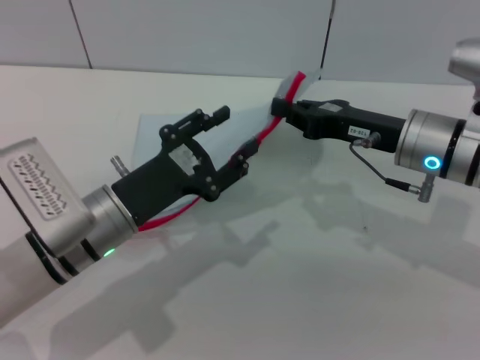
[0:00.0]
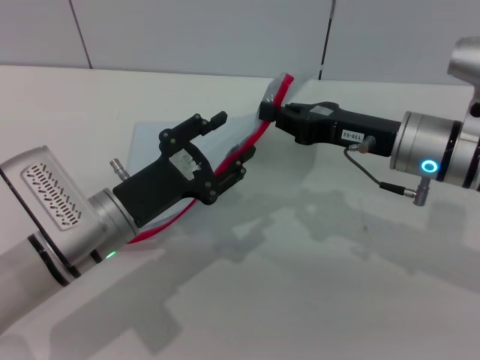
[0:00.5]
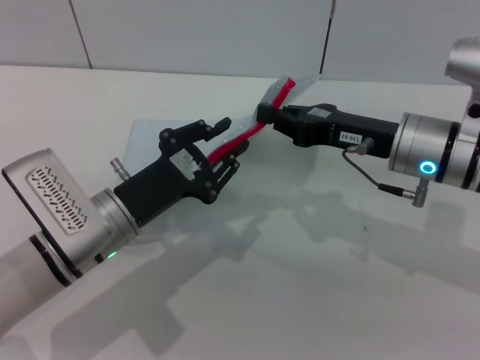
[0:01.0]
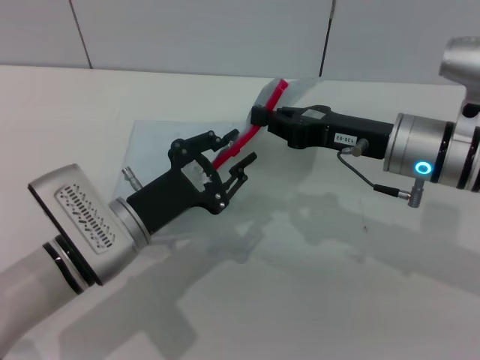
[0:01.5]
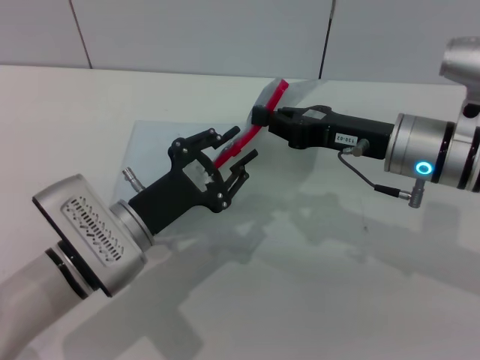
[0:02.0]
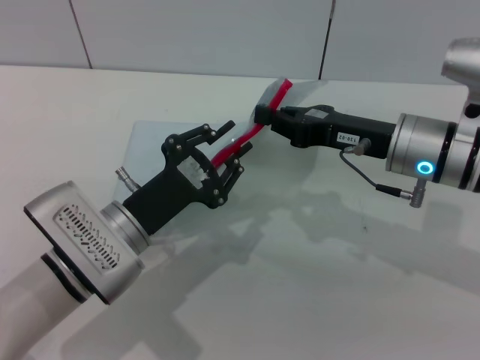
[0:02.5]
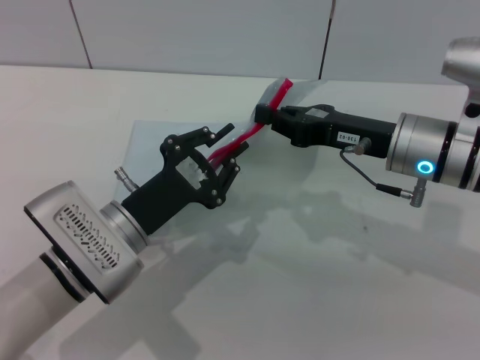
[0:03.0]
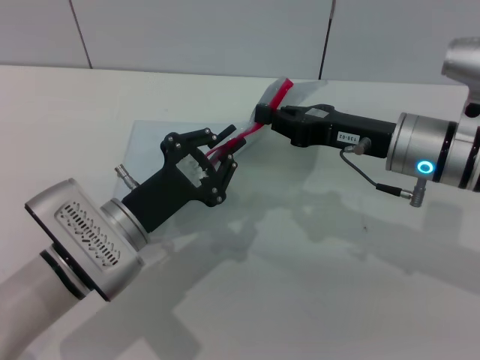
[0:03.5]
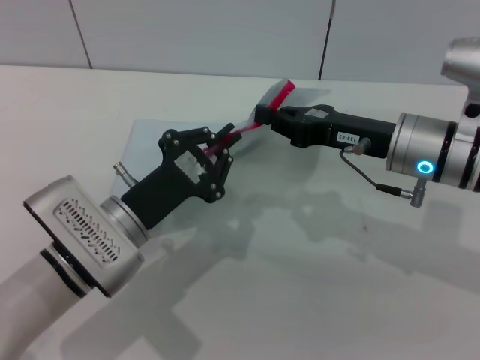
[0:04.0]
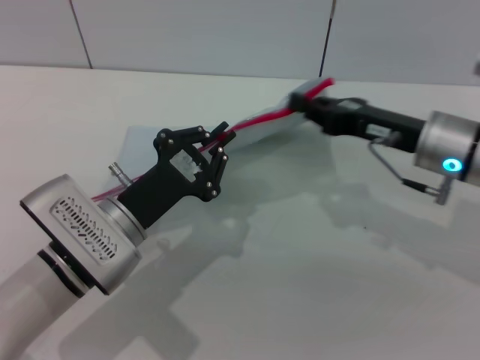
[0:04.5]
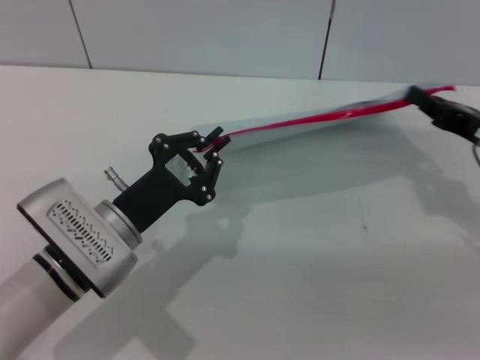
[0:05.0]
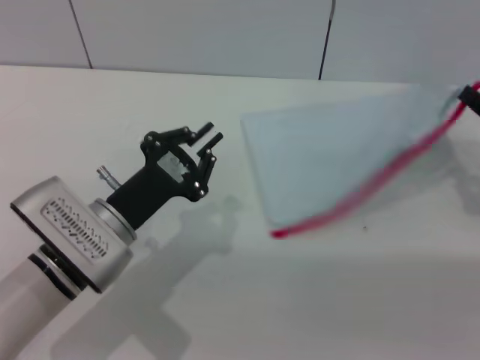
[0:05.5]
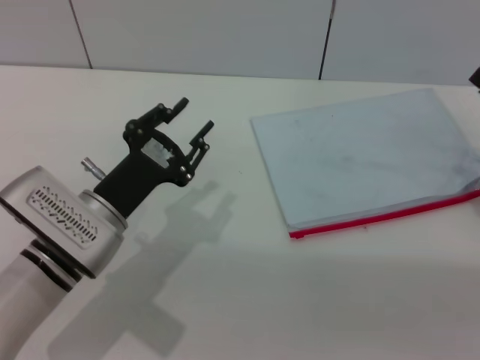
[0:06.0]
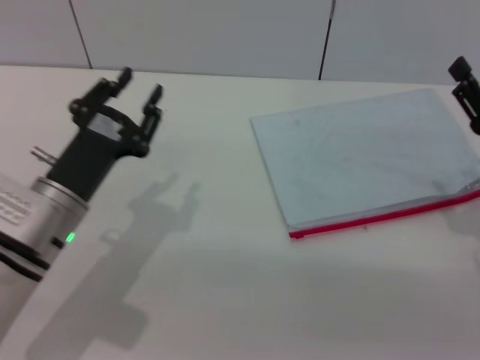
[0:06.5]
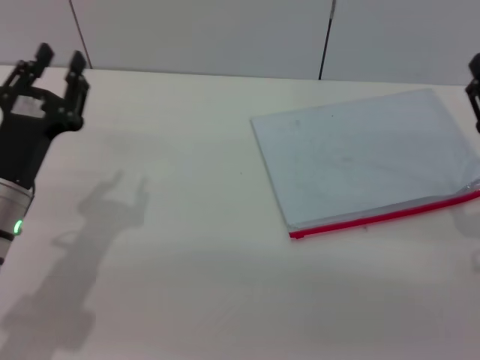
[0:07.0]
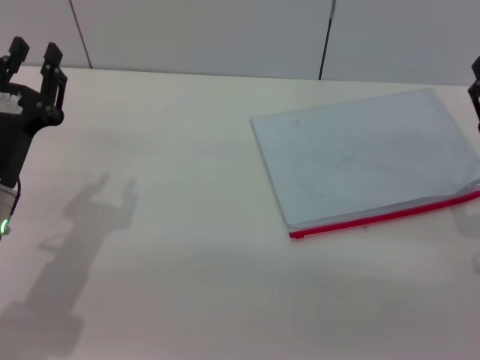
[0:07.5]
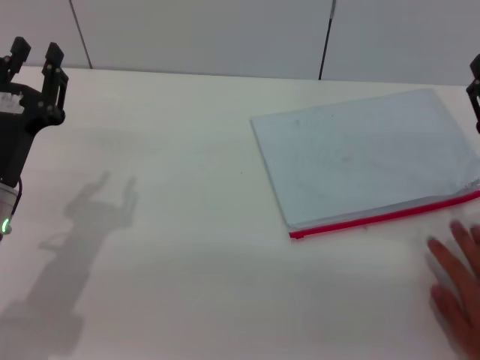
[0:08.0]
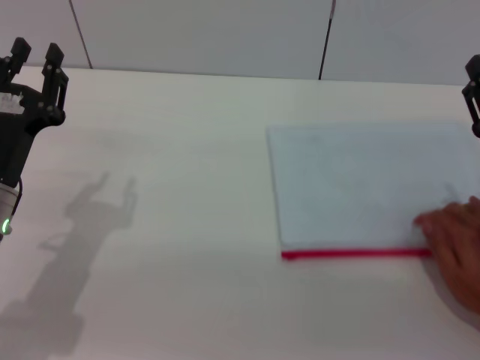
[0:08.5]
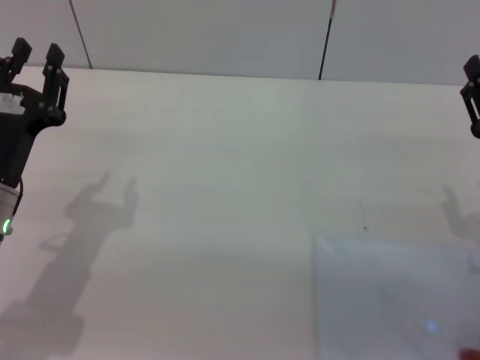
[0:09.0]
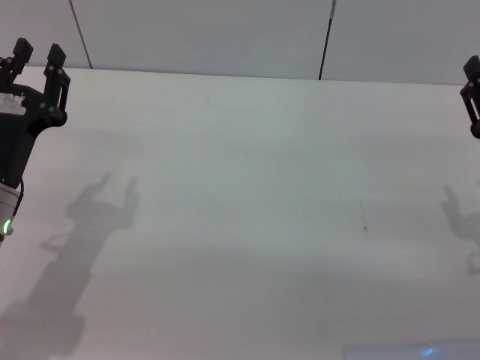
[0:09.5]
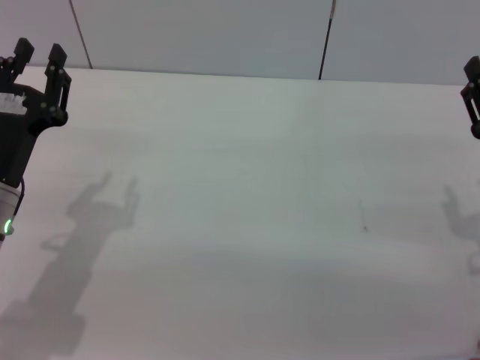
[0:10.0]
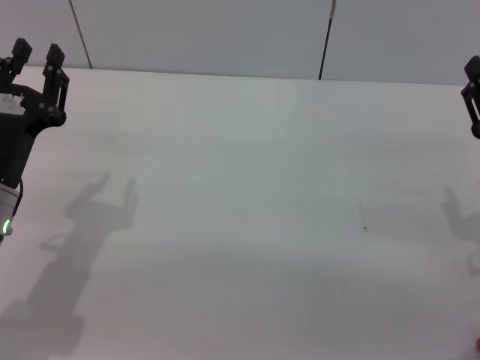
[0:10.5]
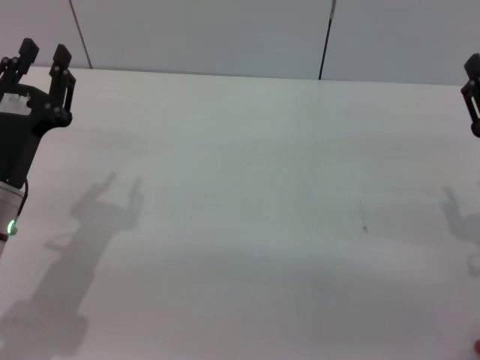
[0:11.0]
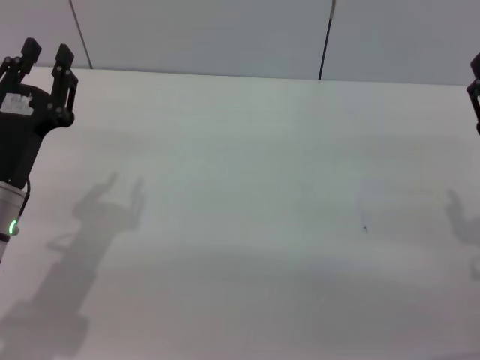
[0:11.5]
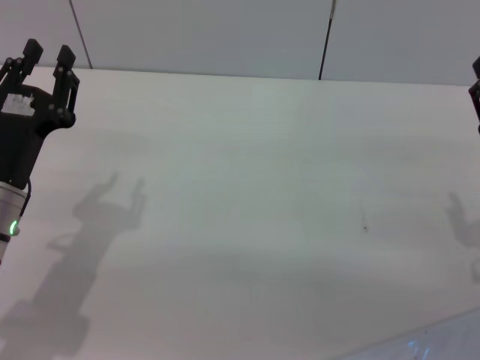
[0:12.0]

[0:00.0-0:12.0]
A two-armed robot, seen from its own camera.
Step, 0:00.0 to 0:05.5: Pulling up the zipper on the transparent plastic bag with the left gripper to close it.
0:00.0 to 0:02.0: The left gripper closes its fingers.
0:02.0 to 0:04.0: The left gripper closes.
0:04.0 to 0:06.0: The right gripper travels to the right by about 15 cm. The left gripper opens up.
0:06.0 to 0:08.0: Both grippers travel together to the left, approximately 5 cm. The right gripper opens.
0:08.0 to 0:12.0: Neither gripper changes place.

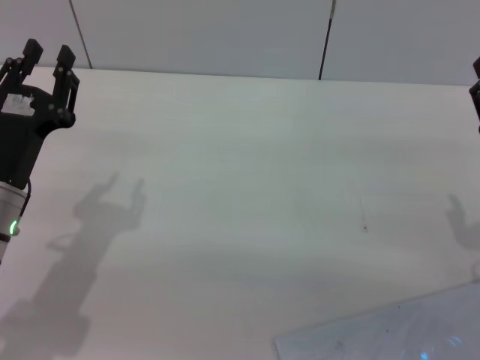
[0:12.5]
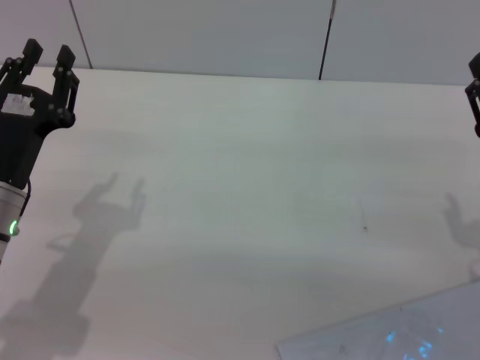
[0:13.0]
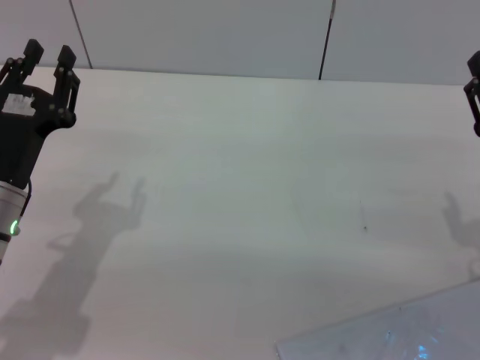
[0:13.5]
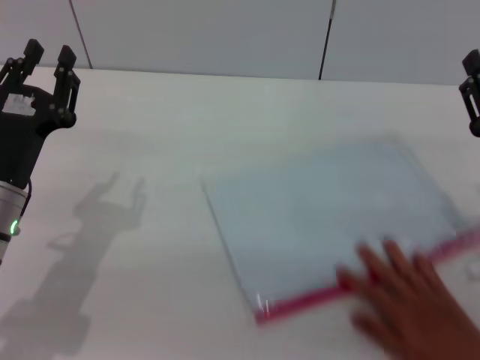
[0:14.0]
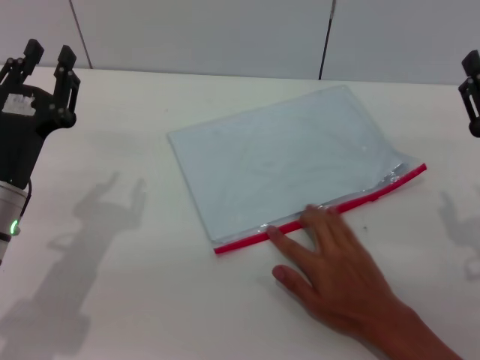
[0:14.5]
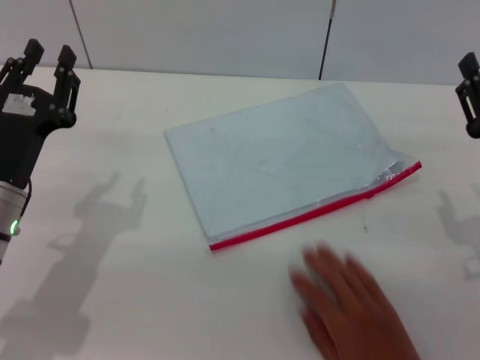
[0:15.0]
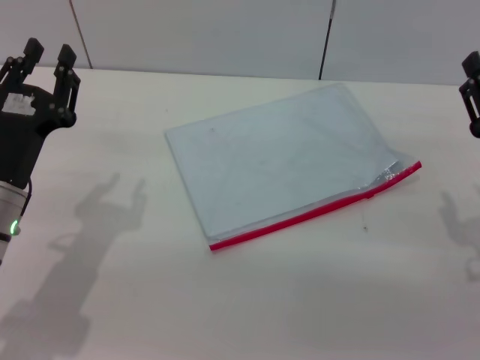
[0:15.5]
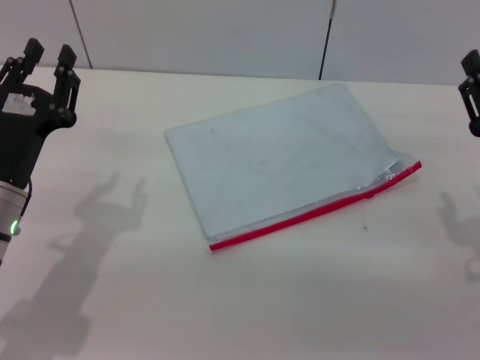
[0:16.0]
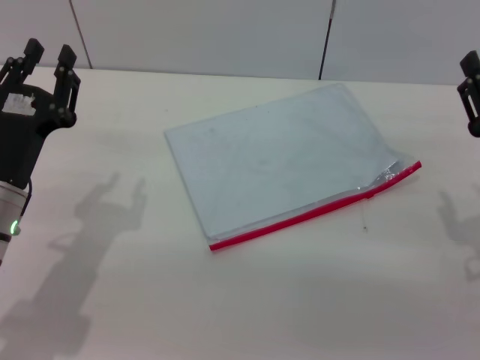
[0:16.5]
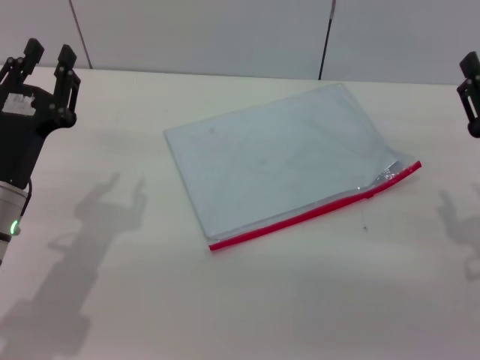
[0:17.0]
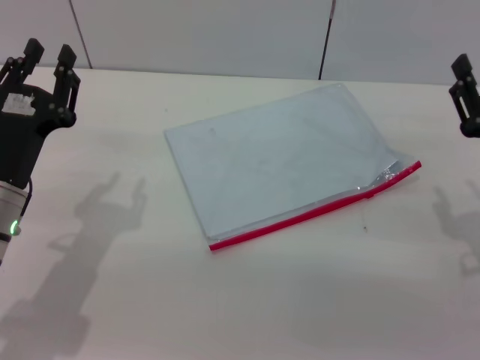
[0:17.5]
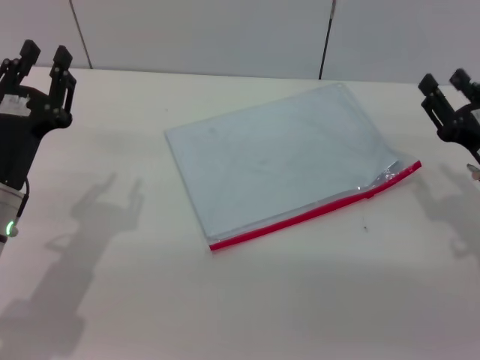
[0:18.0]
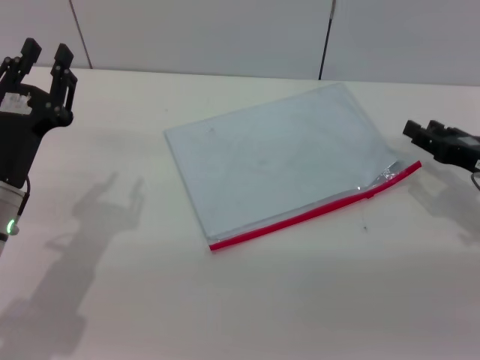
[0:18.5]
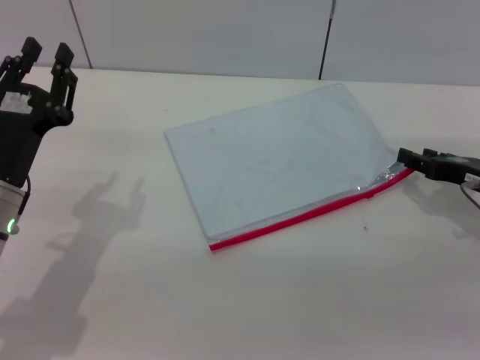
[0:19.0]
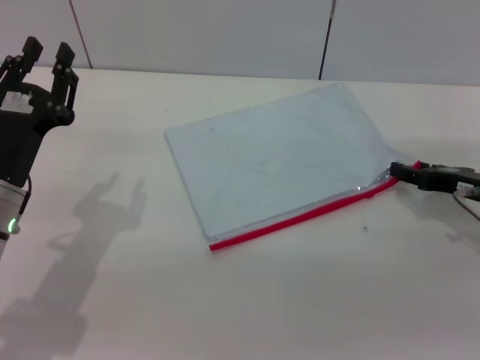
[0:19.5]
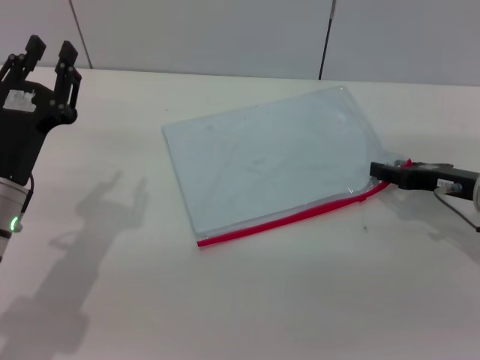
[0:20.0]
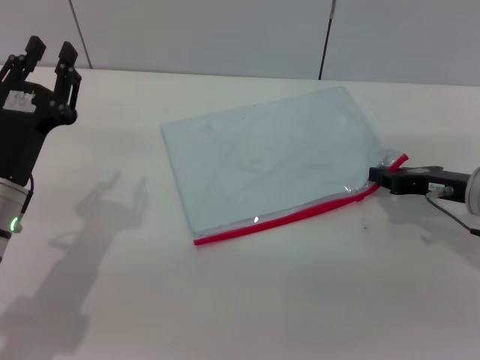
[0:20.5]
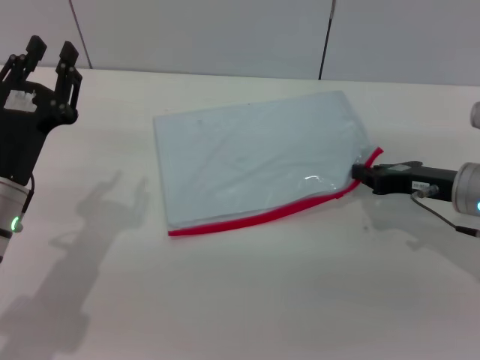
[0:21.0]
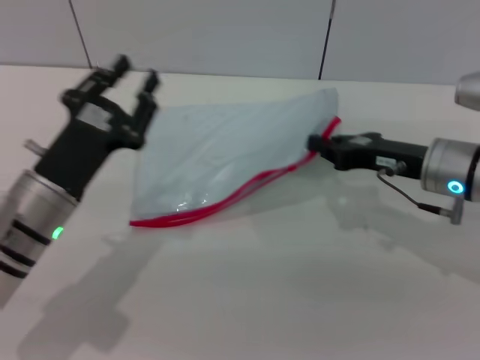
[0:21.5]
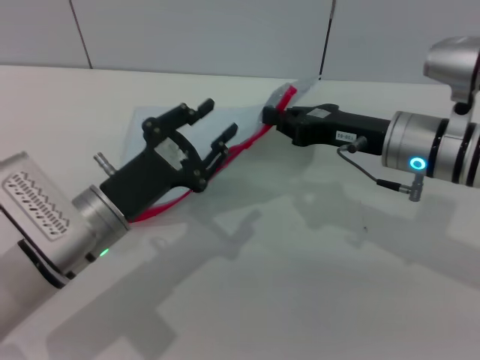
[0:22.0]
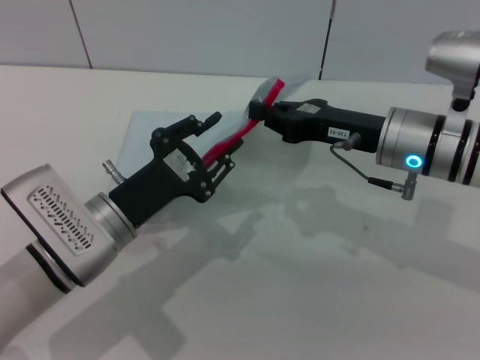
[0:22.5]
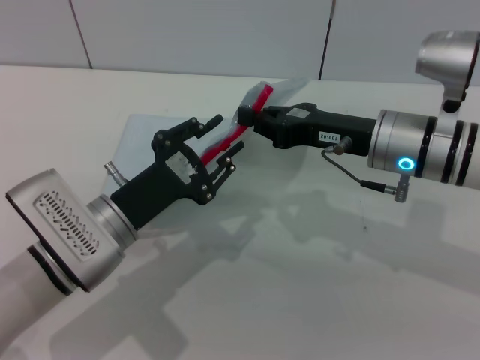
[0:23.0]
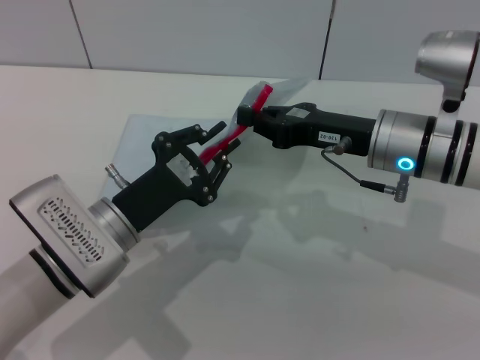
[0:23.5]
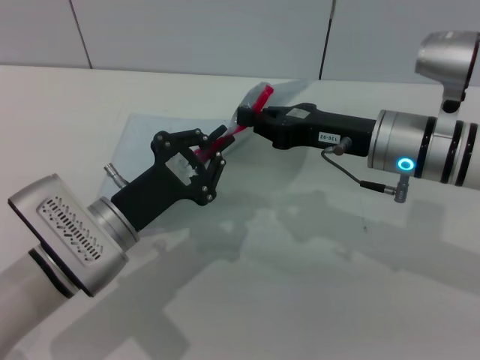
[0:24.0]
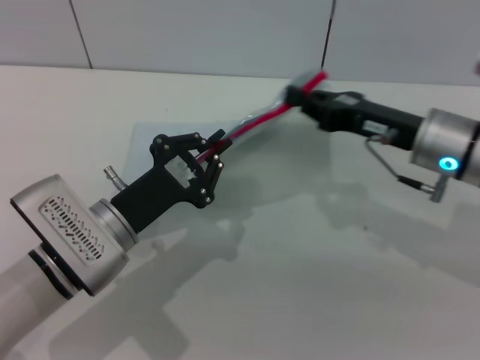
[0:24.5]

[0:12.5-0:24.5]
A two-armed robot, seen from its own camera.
0:12.5 to 0:16.5: Both grippers stay put.
0:16.5 to 0:18.5: The right gripper goes about 5 cm forward.
0:20.5 to 0:22.5: The left gripper goes some 5 cm to the right; the right gripper shifts some 10 cm to the left and upward, and closes.
0:22.5 to 0:24.5: The left gripper closes up.

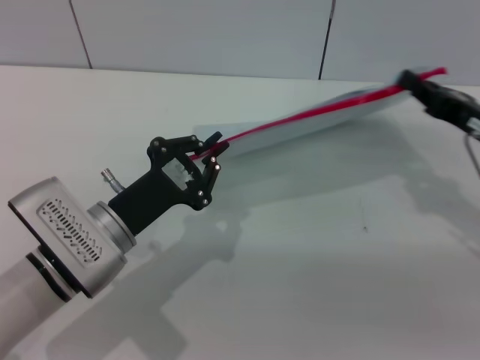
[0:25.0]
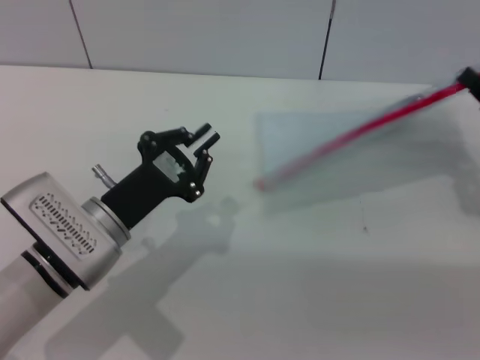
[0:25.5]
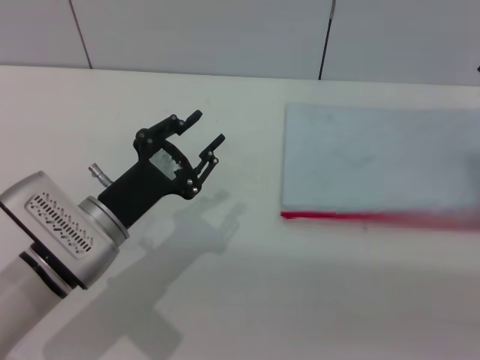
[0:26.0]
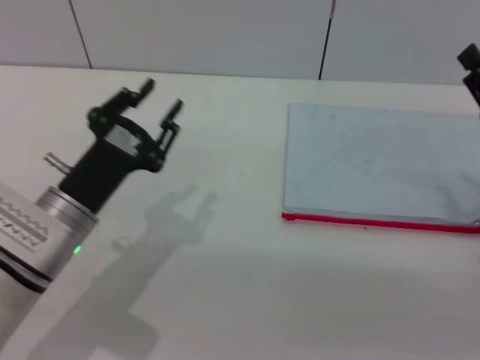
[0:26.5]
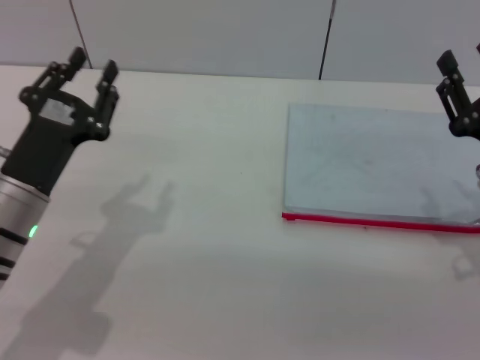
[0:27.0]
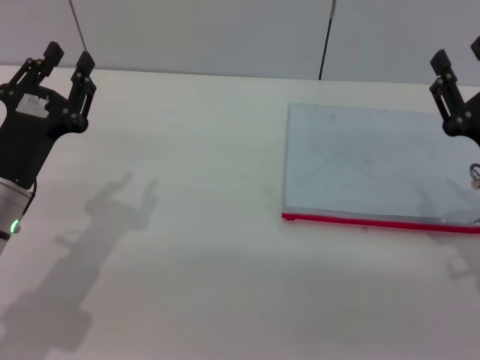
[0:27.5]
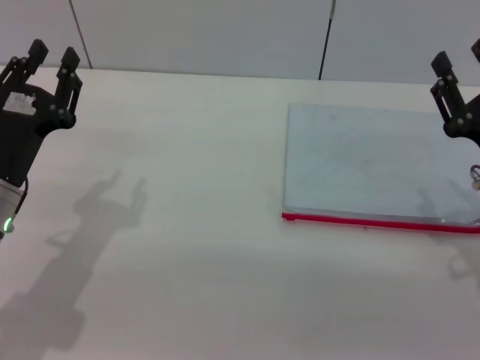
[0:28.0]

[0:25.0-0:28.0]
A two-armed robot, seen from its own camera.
0:25.0 to 0:26.5: The left gripper opens, while the right gripper heads backward, covering about 5 cm, and opens up.
0:26.5 to 0:28.0: The left gripper travels to the left by roughly 5 cm.
